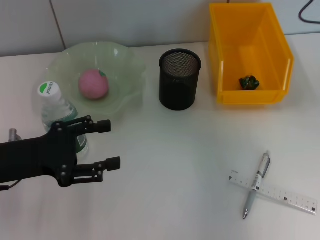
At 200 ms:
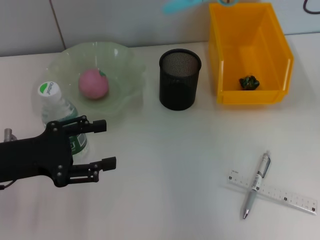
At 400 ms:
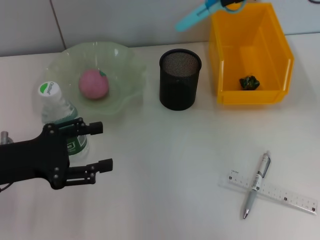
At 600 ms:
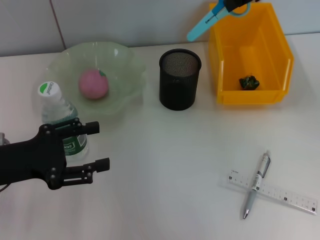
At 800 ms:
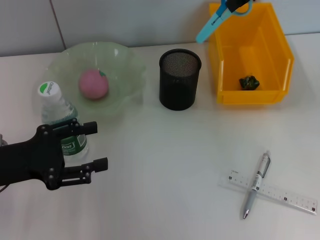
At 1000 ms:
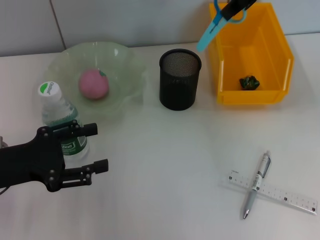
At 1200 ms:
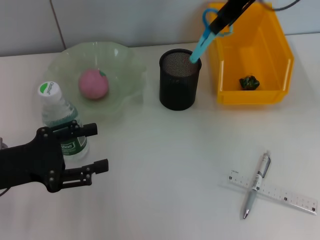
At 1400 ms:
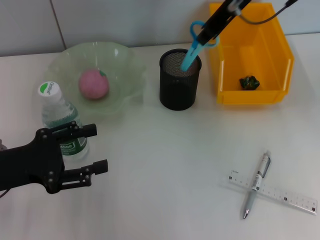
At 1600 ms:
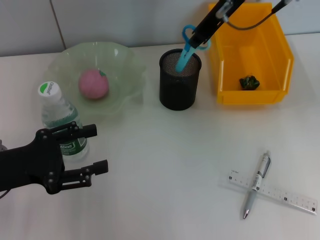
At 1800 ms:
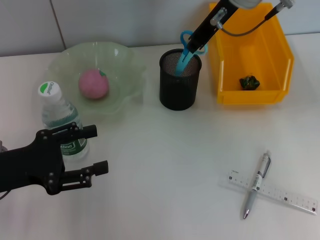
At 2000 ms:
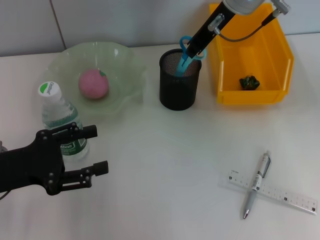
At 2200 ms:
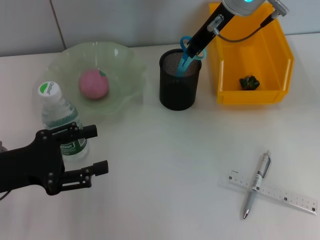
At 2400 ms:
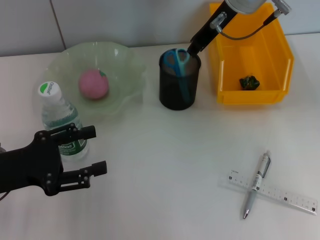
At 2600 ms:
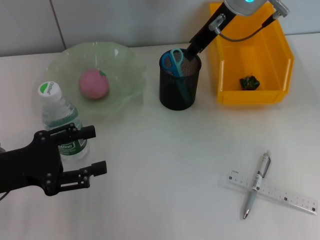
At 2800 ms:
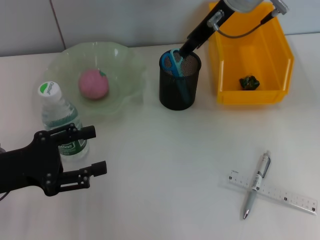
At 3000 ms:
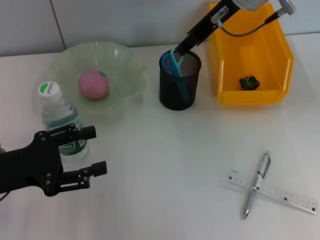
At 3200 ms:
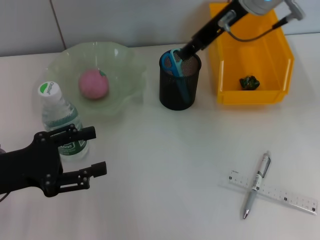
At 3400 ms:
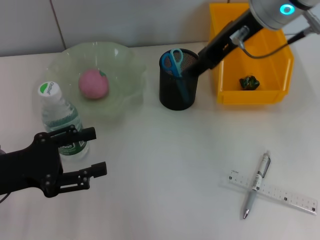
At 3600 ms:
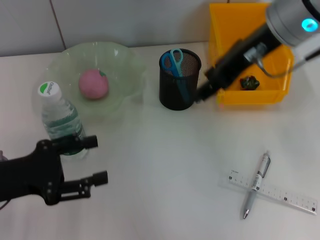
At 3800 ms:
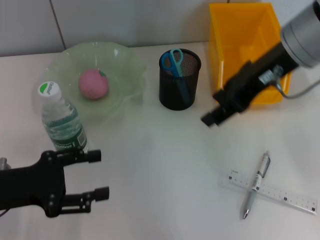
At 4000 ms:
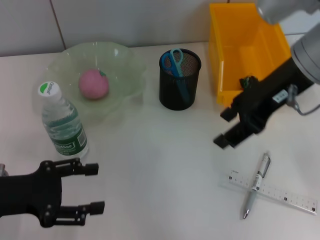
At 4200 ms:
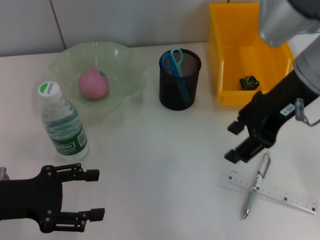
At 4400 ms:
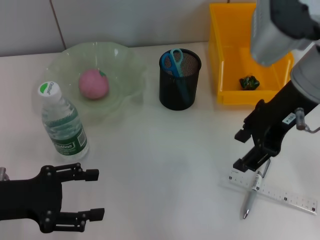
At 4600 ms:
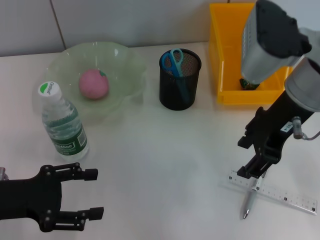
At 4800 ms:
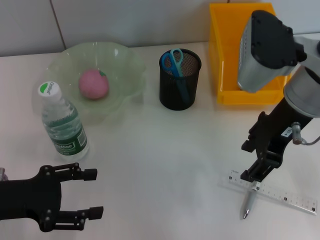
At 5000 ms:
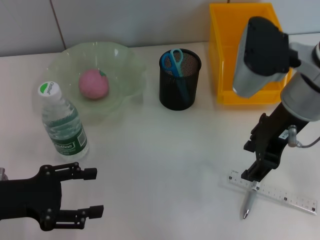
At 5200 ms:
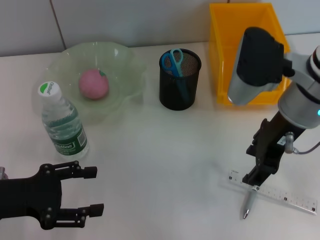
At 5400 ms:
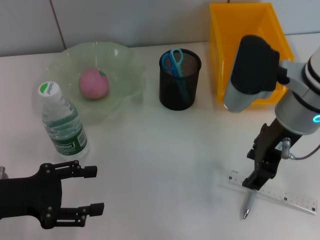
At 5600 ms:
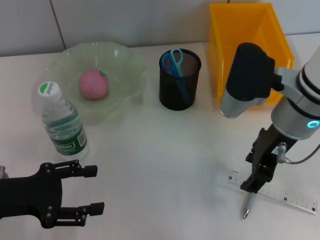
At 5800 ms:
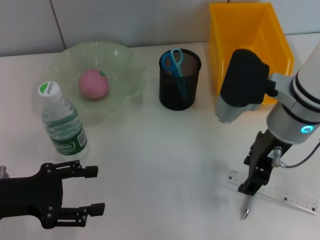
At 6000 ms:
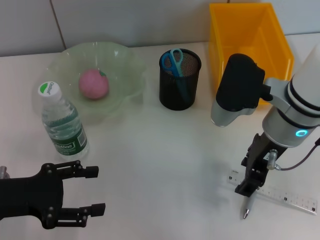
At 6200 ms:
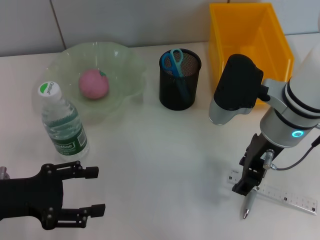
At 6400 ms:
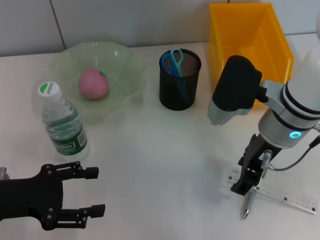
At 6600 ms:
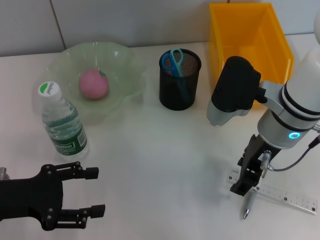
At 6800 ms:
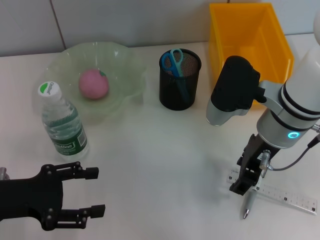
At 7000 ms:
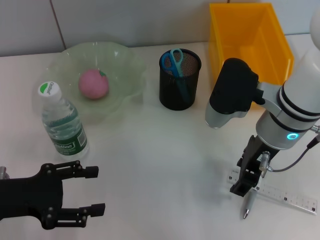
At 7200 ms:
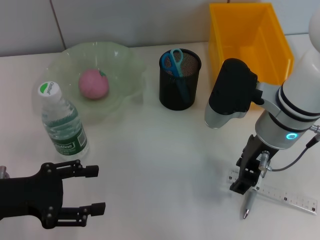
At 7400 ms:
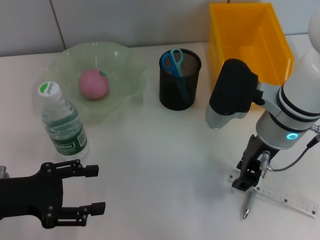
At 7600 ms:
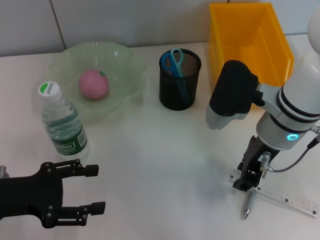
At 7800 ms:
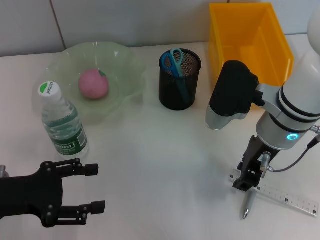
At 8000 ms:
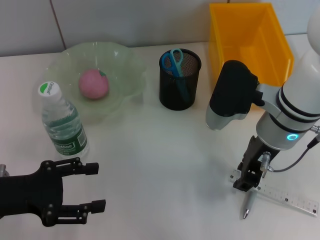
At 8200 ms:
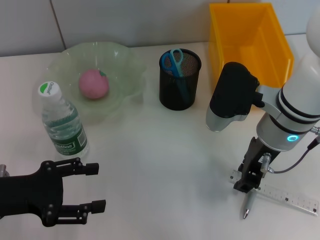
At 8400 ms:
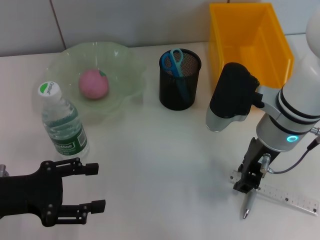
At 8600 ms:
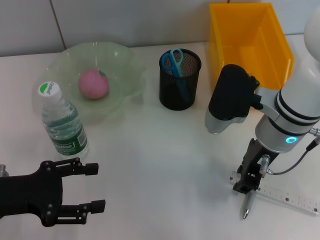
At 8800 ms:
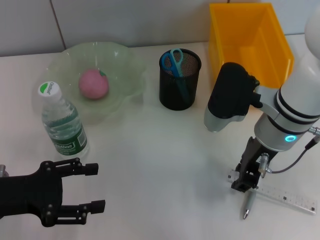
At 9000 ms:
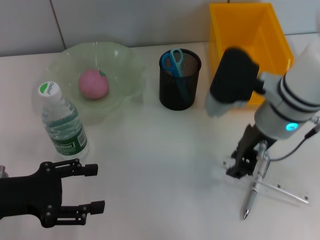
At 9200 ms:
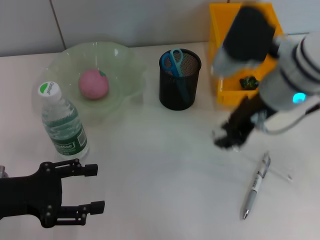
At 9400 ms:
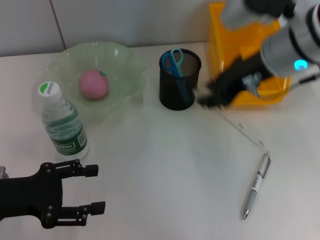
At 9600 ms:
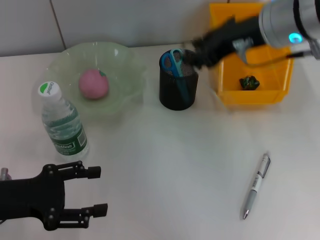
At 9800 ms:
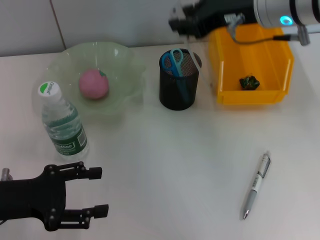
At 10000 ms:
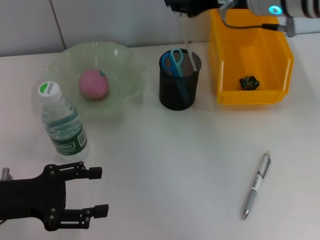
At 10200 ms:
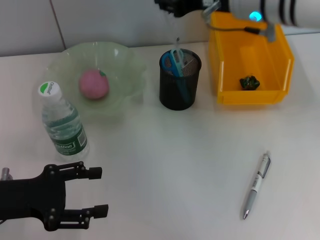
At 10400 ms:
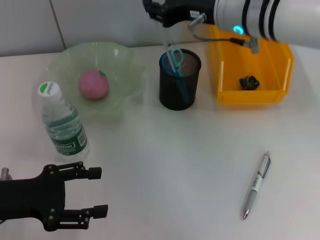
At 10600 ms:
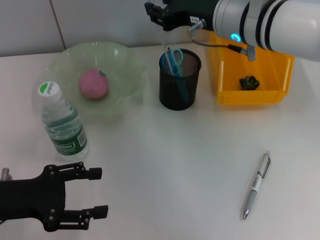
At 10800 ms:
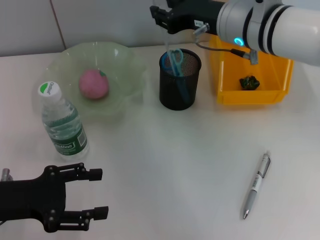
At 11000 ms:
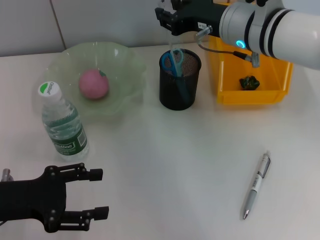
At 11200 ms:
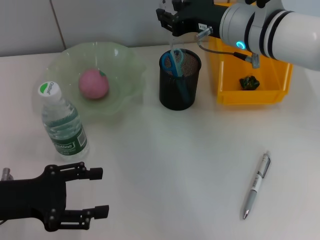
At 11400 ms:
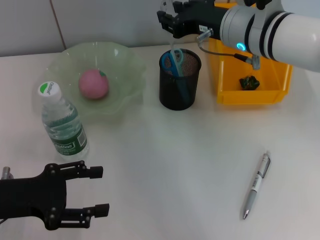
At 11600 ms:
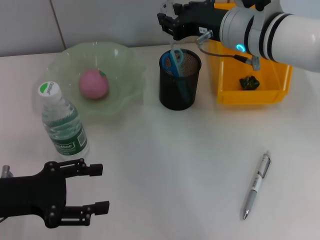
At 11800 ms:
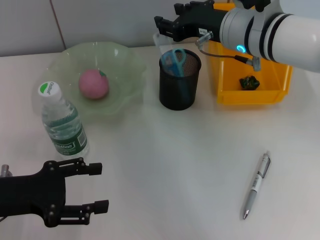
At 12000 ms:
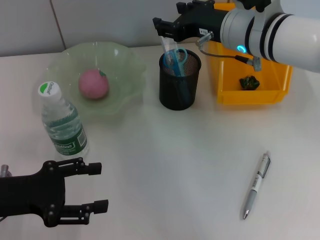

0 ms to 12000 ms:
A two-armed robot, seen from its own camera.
Step, 0 ms to 2200 ms: Place the blue scissors into the pen holder with the right hand.
Step, 9000 ms to 12000 ms: Place the ruler into the pen holder with the right hand.
0 ms to 1600 ms: The right gripper goes roughly 15 cm to the left.
1600 ms to 3000 ms: The right gripper opens.
3000 ms to 4400 ms: The right gripper is displaced backward by approximately 10 cm.
4400 ms to 6000 ms: The right gripper is displaced downward by about 5 cm.
6000 ms to 9000 ms: The grippers stay close to where they were, moving slightly.
9000 ms to 10400 ms: The right gripper heads forward and upward, covering some 10 cm.
10400 ms to 12000 ms: The grippers make only small movements.

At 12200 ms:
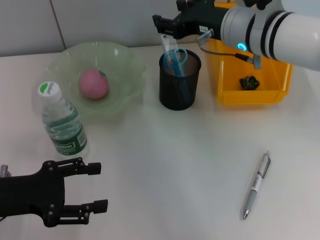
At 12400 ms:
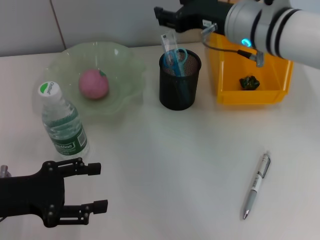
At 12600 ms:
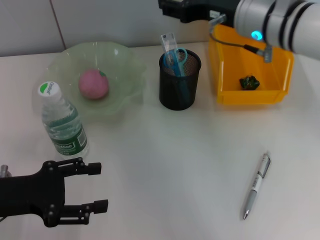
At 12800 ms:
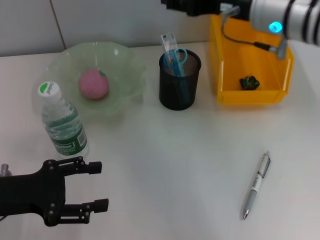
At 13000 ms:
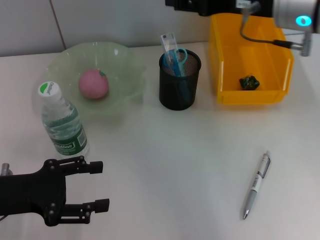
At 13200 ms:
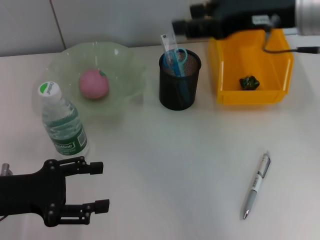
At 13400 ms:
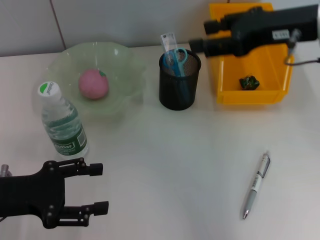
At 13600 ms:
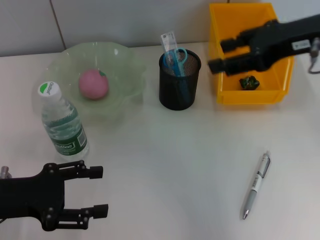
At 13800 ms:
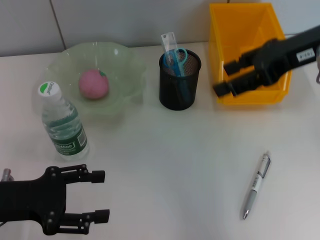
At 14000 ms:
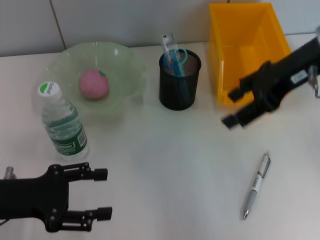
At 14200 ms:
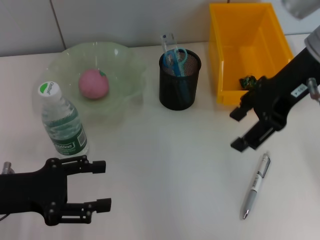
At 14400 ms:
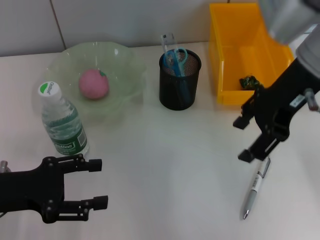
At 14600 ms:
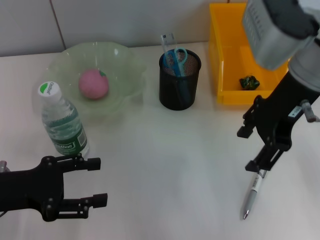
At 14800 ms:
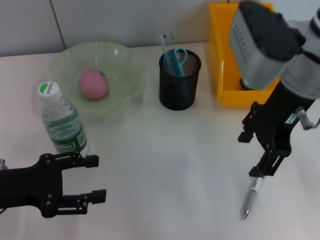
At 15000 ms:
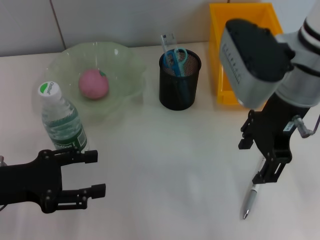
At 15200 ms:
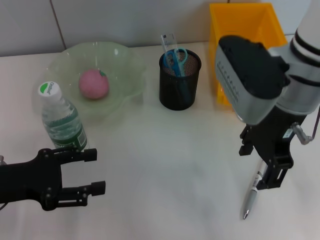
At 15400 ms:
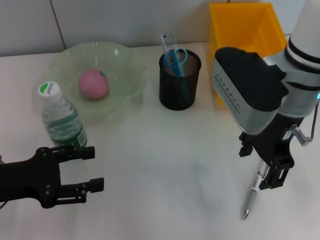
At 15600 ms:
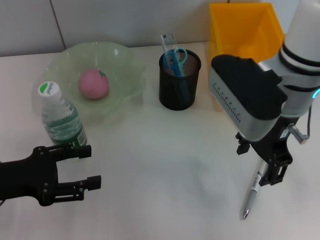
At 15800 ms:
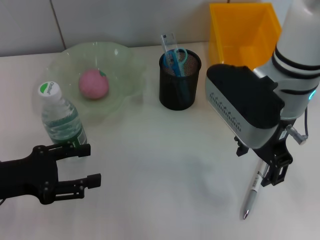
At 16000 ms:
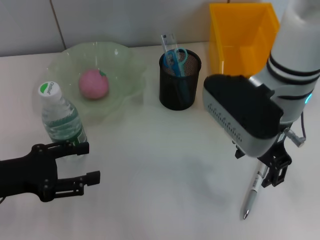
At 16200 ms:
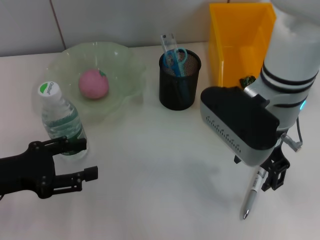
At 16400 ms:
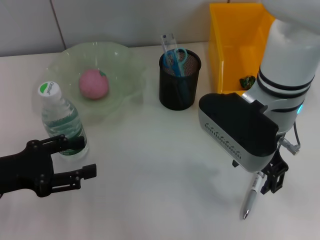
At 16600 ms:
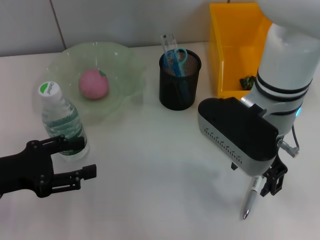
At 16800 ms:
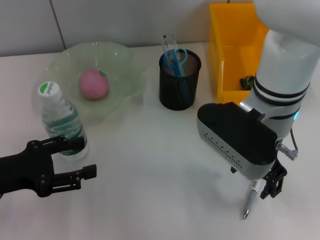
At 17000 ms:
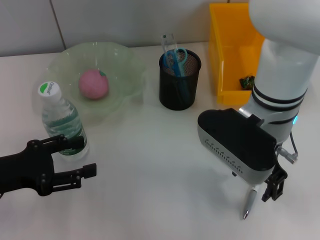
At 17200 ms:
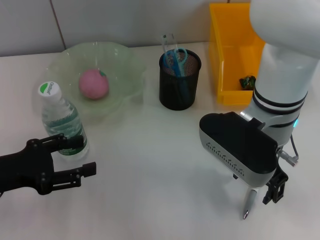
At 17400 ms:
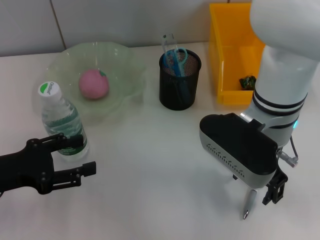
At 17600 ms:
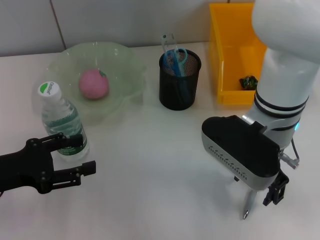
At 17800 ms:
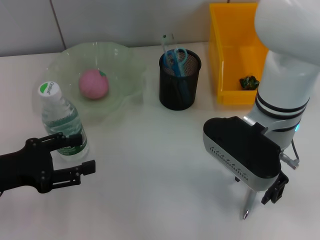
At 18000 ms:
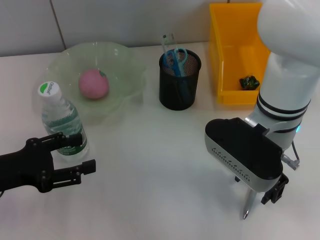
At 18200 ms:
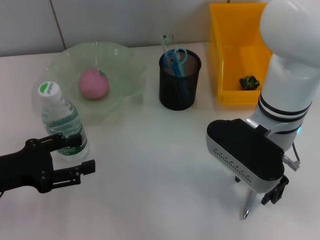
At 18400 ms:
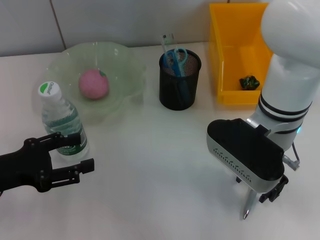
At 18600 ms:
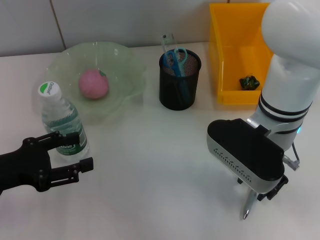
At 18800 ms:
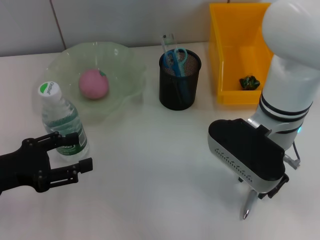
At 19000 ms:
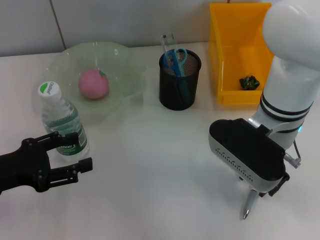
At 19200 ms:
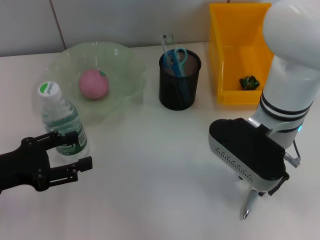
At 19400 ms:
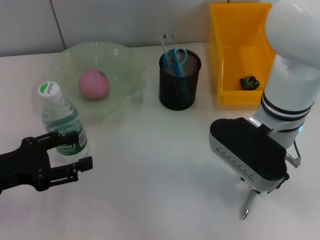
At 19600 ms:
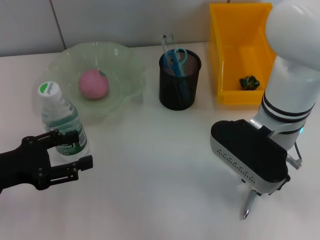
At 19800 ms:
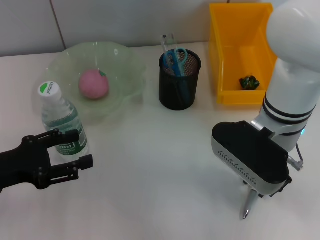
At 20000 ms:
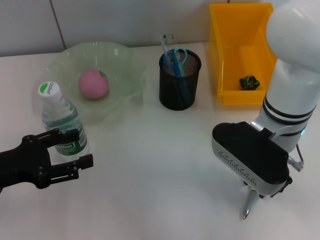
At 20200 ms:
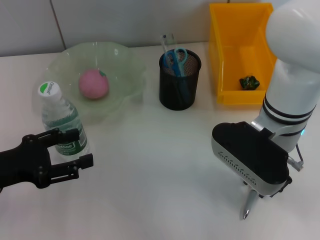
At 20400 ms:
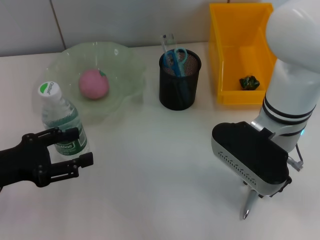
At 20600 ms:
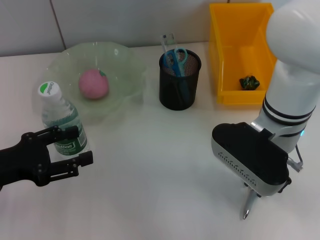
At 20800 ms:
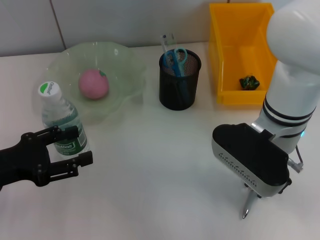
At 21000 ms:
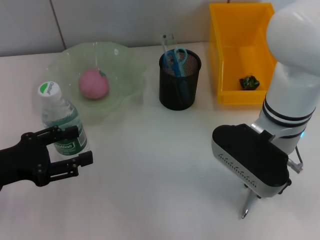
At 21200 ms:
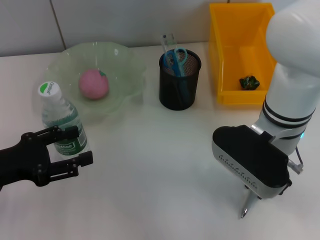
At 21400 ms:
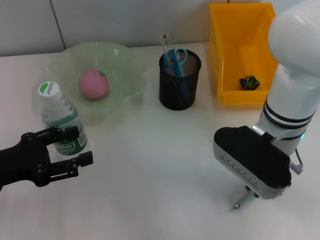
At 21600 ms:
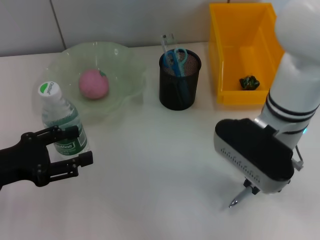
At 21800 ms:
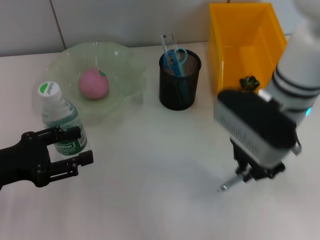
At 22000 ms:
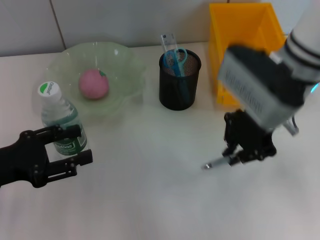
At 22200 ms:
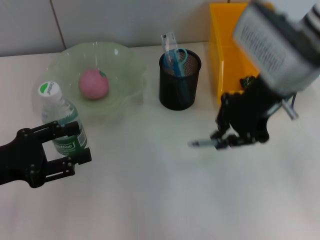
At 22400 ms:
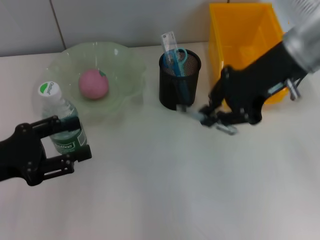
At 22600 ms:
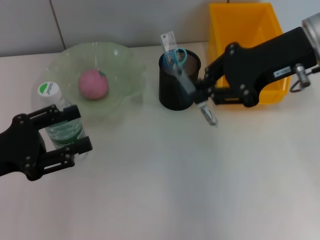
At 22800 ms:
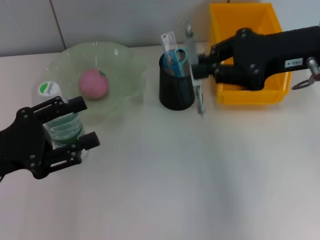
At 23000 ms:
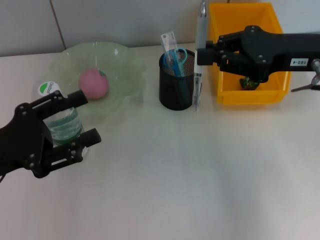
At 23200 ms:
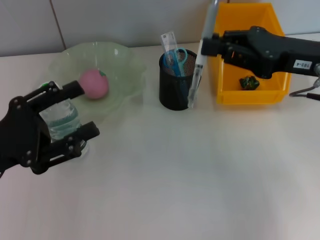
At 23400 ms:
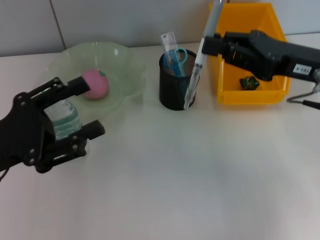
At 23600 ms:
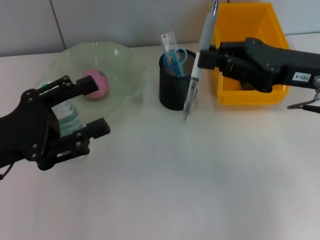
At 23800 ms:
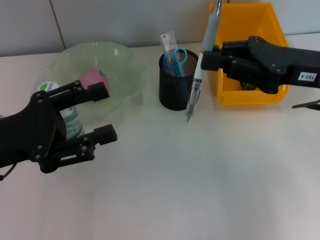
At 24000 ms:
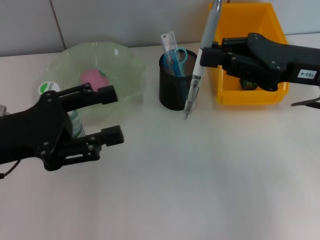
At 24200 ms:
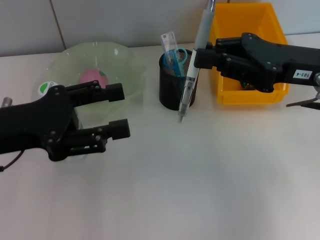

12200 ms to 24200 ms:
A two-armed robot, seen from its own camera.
Step, 12200 ms to 21200 ms: Grab the gray spring-action pen with the right hand.
12200 ms to 13800 ms: The right gripper goes about 10 cm to the right and upward.
13800 ms to 15200 ms: The right gripper heads to the left, covering some 10 cm.
15200 ms to 16600 ms: The right gripper shifts by roughly 5 cm.
16600 ms to 18200 ms: The grippers stay close to where they were, moving slightly.
18200 ms to 19800 ms: The right gripper closes.
19800 ms to 21200 ms: Both grippers stay about where they are.
21200 ms to 22600 ms: The right gripper heads upward and to the right, covering approximately 15 cm.
22600 ms to 24200 ms: The right gripper shifts about 5 cm downward. The left gripper moves upward, about 5 cm.
